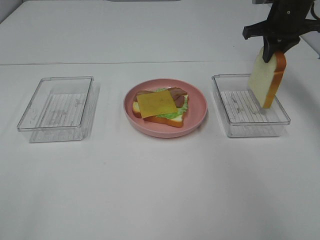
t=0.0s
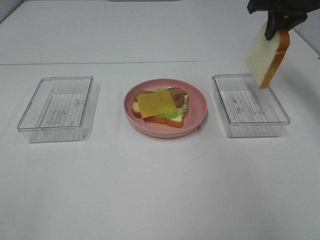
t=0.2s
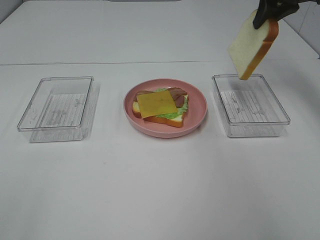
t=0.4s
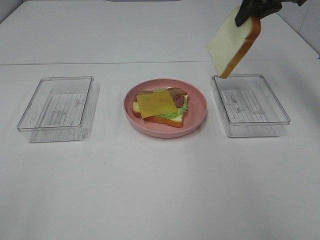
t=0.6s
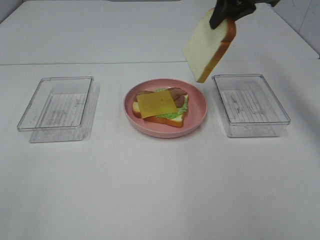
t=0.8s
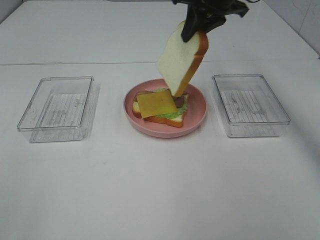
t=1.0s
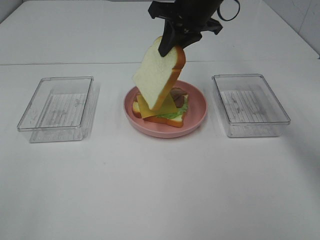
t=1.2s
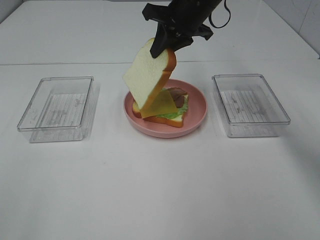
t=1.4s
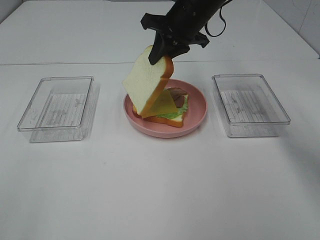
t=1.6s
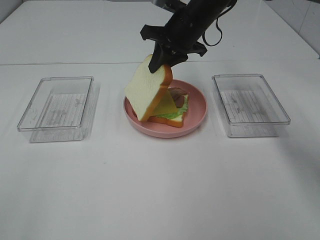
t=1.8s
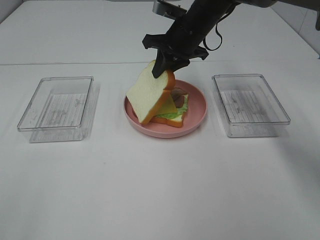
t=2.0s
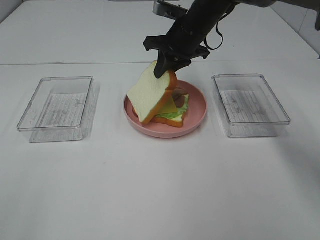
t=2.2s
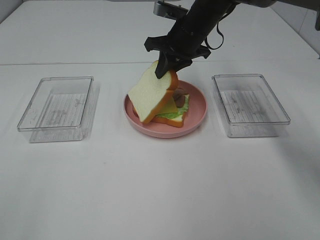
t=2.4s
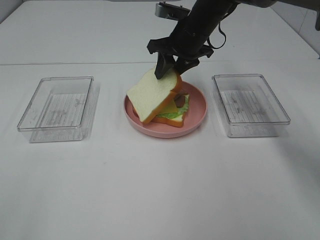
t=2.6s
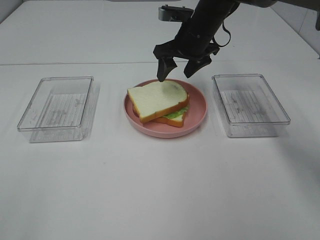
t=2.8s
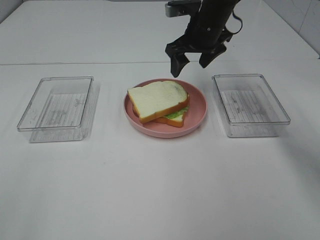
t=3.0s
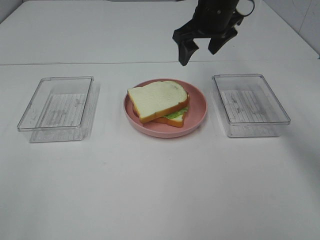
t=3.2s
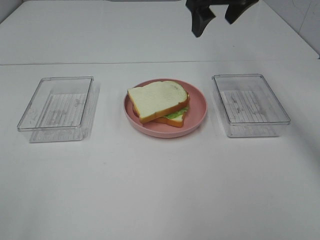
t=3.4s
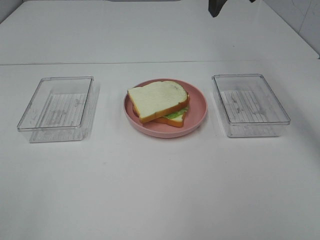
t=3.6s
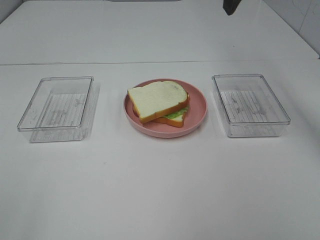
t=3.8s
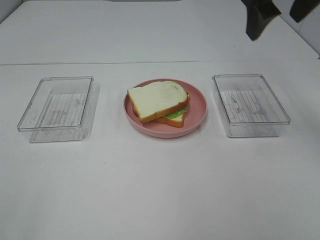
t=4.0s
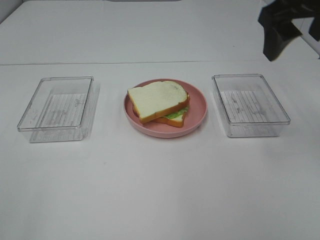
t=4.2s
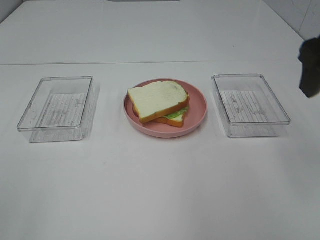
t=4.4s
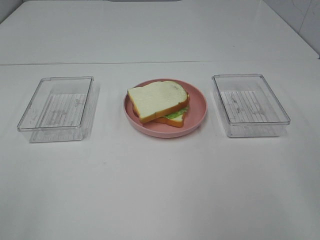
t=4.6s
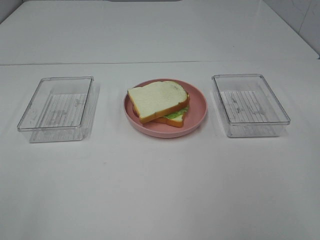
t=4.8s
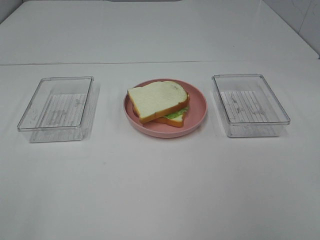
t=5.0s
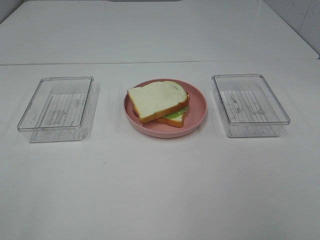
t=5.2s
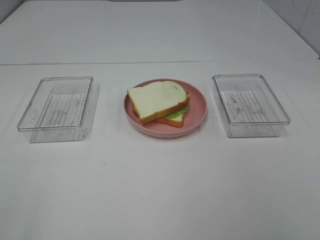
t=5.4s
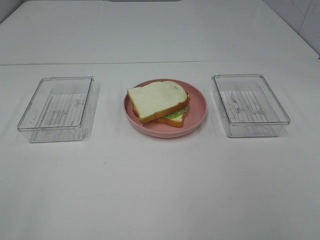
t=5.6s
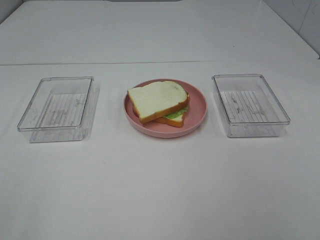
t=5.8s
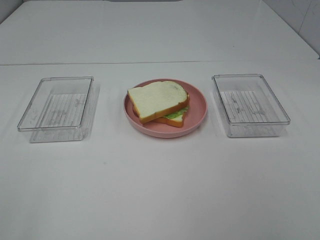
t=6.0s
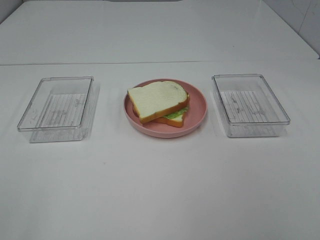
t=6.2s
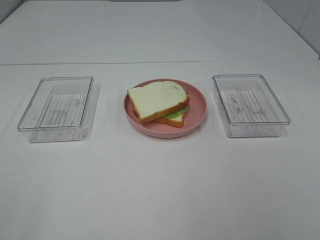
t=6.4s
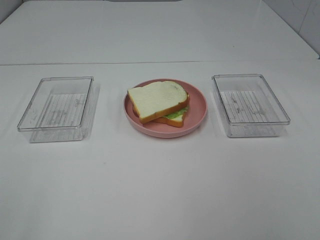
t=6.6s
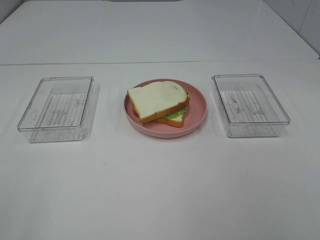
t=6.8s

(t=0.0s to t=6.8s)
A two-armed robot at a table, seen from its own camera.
Task of the whole recording: Make sandwiches.
Step, t=0.0s - t=2.8s: Right hand:place the bread slice on the cheese slice.
t=0.0s - t=1.4s: The right gripper goes some 20 cm to the left.
t=1.4s - t=2.8s: The right gripper shifts approximately 5 cm downward, and opens.
t=2.8s - t=4.0s: The right gripper travels upward, backward and to the right by approximately 25 cm.
t=4.0s - t=5.4s: The right gripper goes about 30 cm backward.

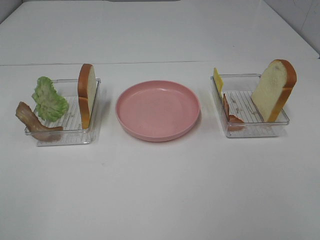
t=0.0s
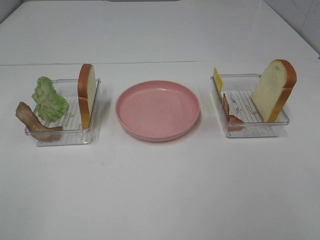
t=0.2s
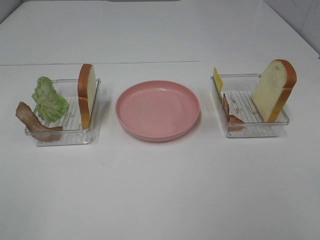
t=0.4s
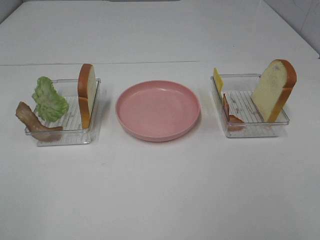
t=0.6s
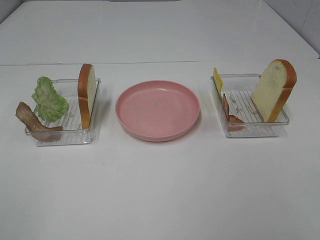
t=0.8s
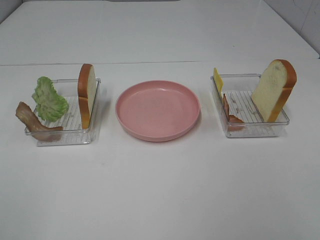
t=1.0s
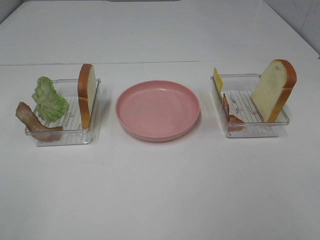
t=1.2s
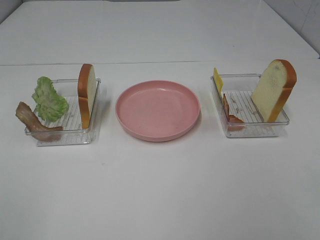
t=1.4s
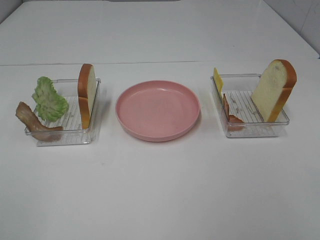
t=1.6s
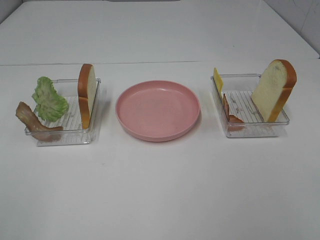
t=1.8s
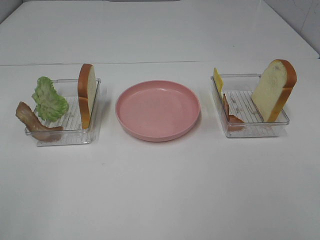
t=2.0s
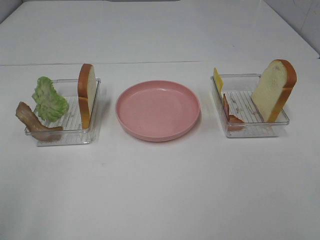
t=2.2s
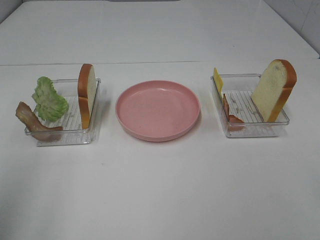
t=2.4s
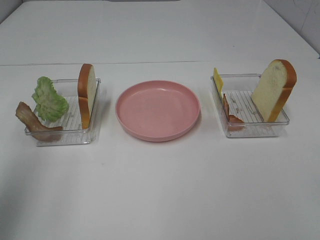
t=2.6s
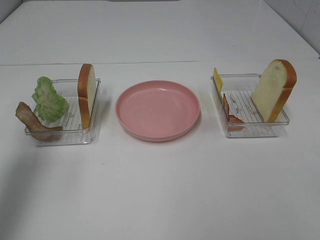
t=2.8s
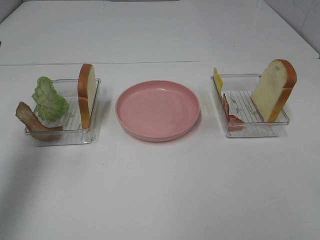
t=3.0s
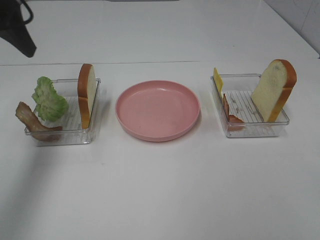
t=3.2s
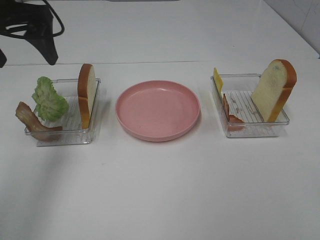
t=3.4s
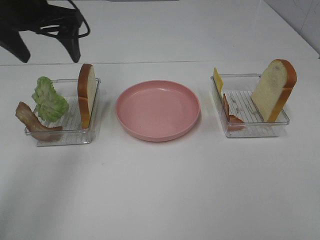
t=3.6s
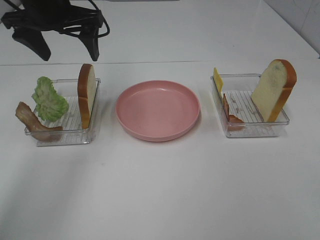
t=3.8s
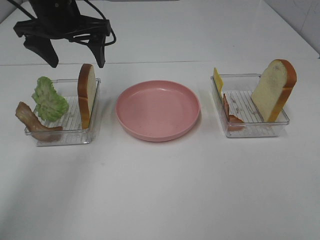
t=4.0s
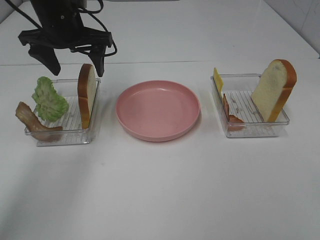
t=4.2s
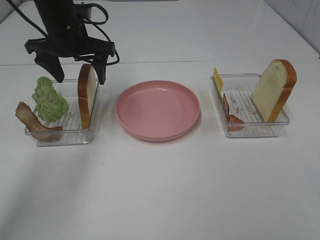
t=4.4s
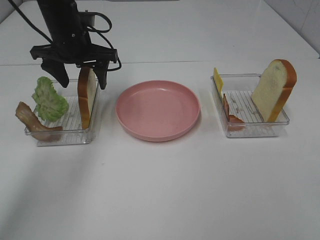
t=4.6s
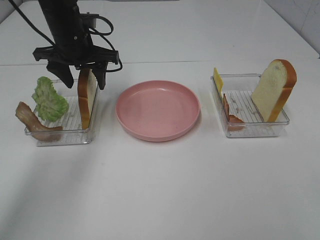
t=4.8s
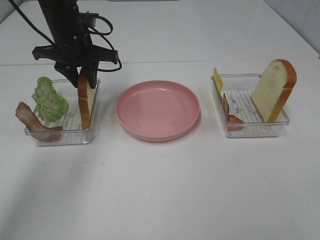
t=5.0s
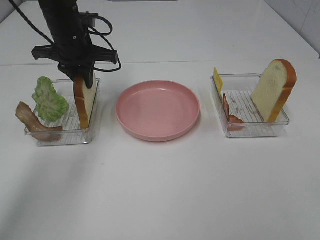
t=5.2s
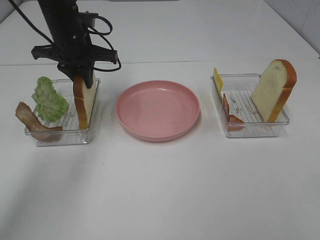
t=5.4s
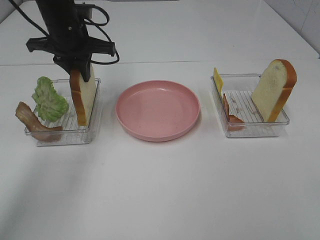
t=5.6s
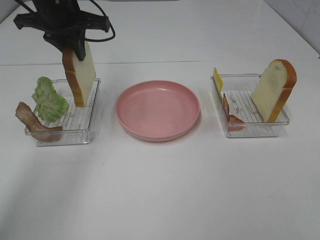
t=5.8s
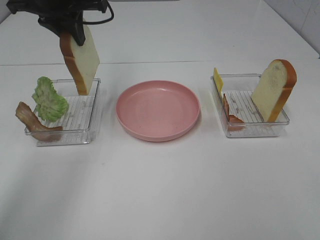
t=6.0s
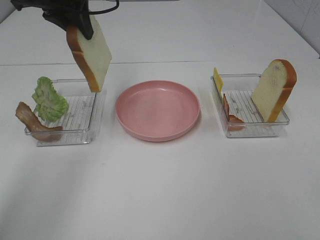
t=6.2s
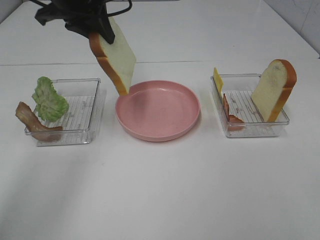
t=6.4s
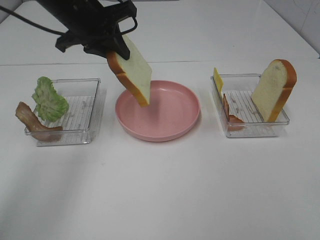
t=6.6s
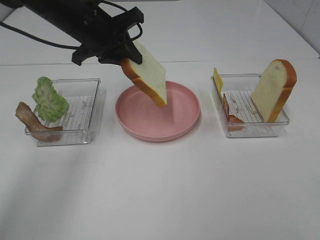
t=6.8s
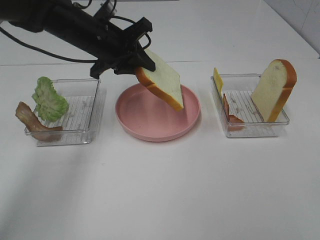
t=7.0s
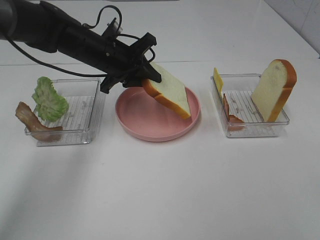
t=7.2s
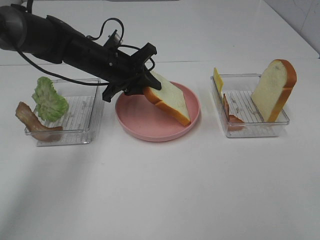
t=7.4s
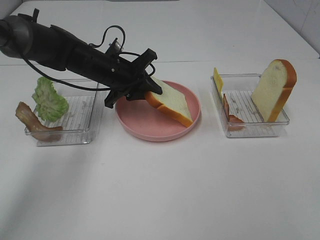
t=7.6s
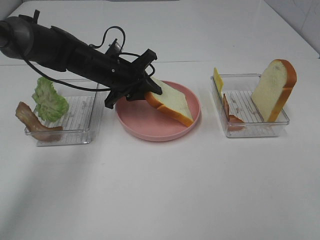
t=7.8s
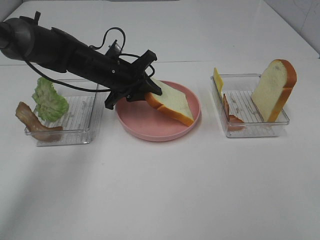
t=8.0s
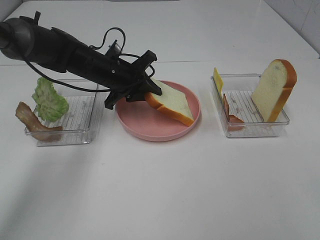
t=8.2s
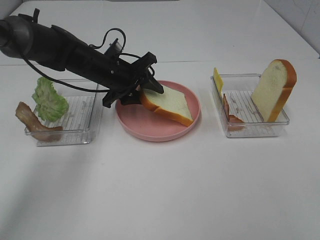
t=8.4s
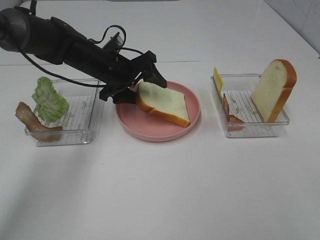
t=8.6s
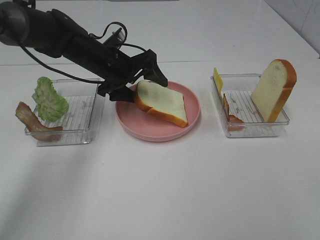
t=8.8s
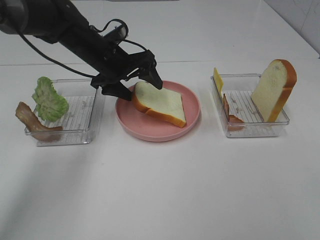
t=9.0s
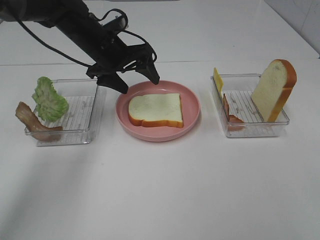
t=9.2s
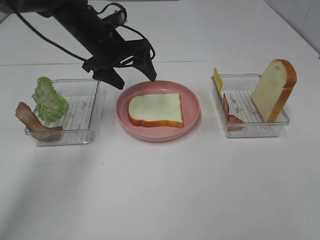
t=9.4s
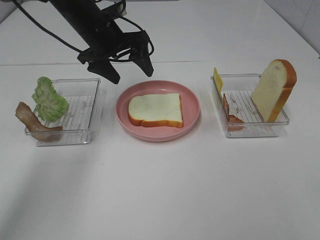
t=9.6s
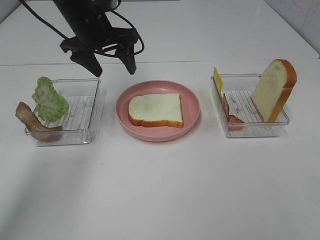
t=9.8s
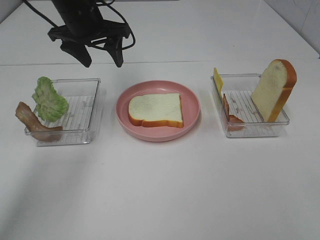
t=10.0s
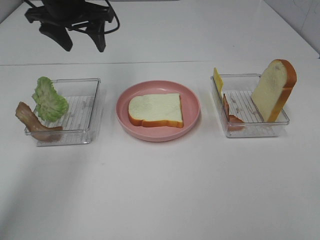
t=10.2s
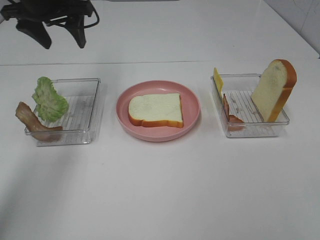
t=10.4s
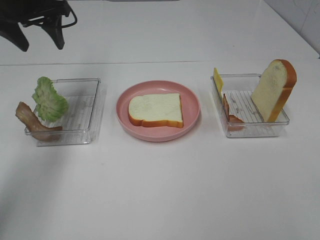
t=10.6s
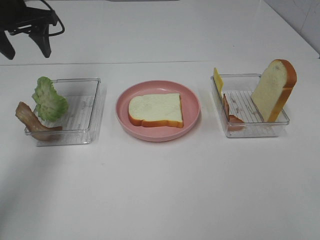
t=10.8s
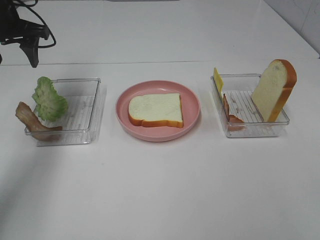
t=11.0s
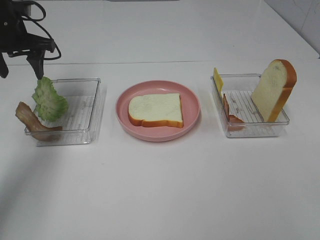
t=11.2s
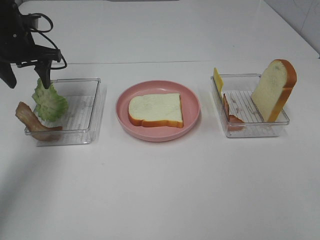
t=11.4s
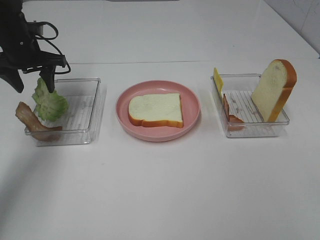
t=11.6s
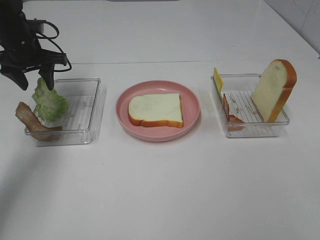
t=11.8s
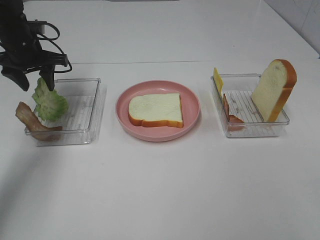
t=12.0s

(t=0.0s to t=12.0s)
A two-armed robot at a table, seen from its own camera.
Task of the whole recording: Make sandwiches.
Step, t=0.0s - t=5.4s: Left hand:grab the bread slice.
Step, t=5.6s - t=9.4s: Left hand:place the bread slice on the plate.
t=0.0s - t=1.6s: Both grippers stay about where they are.
t=1.6s - t=3.0s: The left gripper is displaced forward by about 30 cm.
t=3.0s - t=4.4s: The left gripper shifts about 25 cm forward, to the right and downward.
t=4.4s - t=6.0s: The left gripper goes some 10 cm upward, and closes its fingers.
t=6.0s - t=7.6s: The left gripper shifts some 20 cm downward.
t=7.6s - t=9.0s: The left gripper opens up.
t=9.0s - t=10.4s: The left gripper goes some 15 cm upward and to the left.
t=10.4s - t=12.0s: The left gripper travels downward and to the left by some 15 cm.

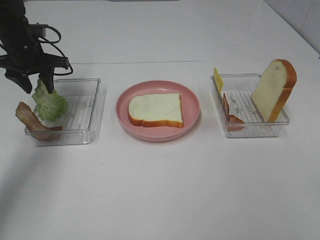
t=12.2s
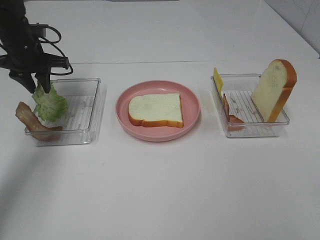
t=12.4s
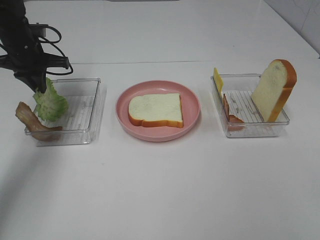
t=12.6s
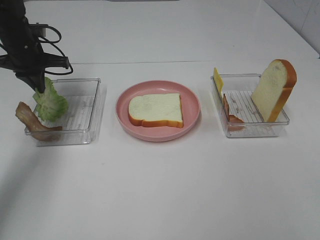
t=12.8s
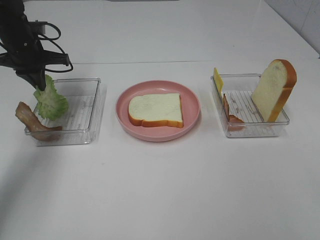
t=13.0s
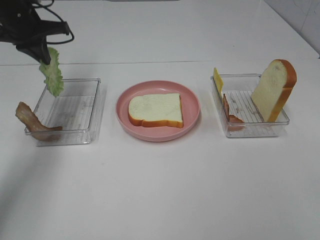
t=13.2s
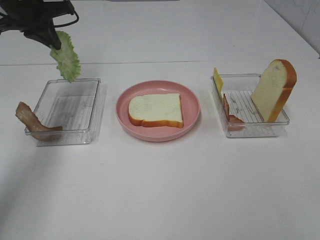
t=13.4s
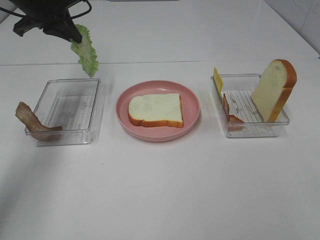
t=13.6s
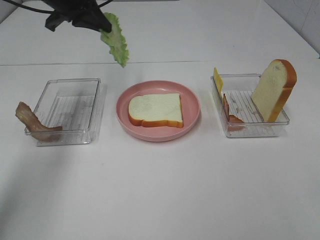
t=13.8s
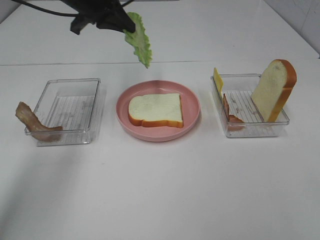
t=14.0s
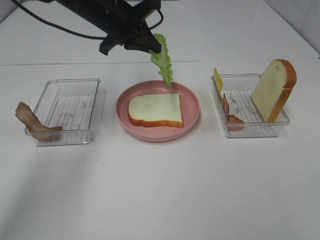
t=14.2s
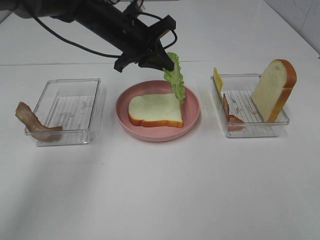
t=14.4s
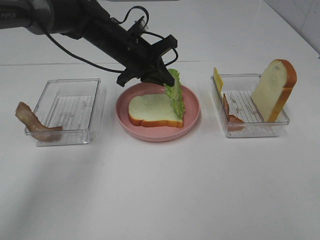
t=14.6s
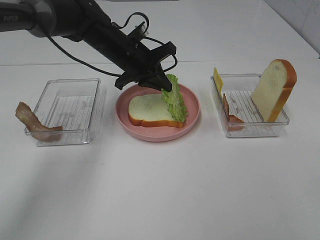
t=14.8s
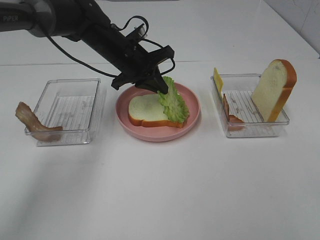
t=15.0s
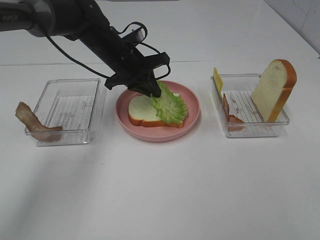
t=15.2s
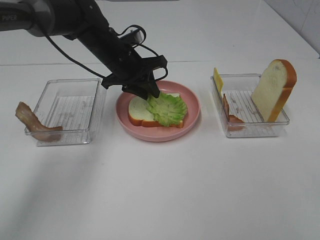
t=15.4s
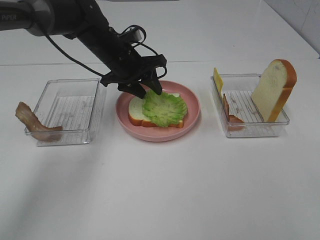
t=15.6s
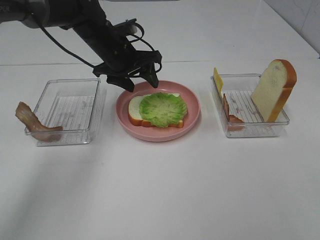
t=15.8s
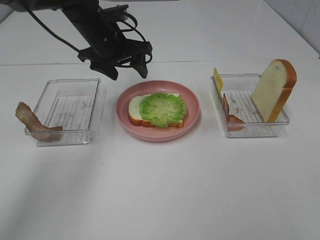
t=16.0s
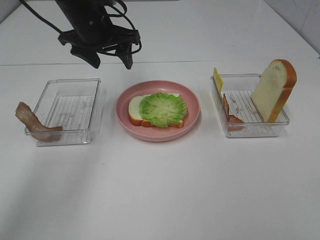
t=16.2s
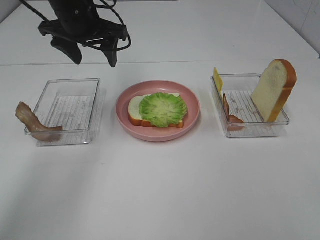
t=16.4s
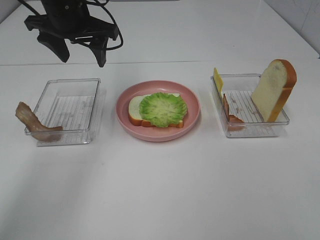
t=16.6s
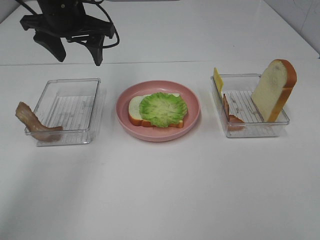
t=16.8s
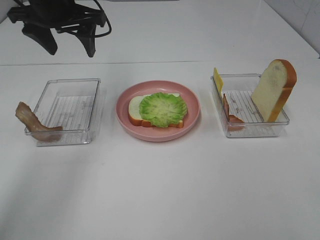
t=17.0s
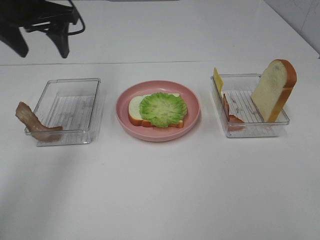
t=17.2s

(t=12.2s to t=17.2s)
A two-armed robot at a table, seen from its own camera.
Task of the whole recording: Make sandwiches.
Step, t=13.0s - t=16.0s: Left hand:place the lettuce slice on the bread slice.
t=12.2s - t=13.8s: The left gripper is displaced upward and to the right by approximately 15 cm, and closes its fingers.
t=13.8s - t=15.6s: The left gripper heads downward and to the right, covering roughly 15 cm, and opens its fingers.
t=15.6s - t=17.2s: The left gripper goes about 20 cm upward, to the left and backward.
